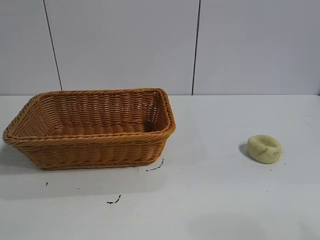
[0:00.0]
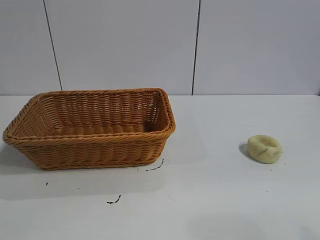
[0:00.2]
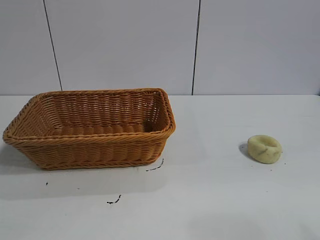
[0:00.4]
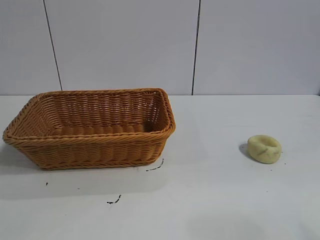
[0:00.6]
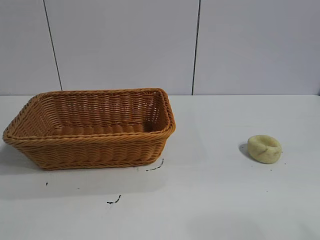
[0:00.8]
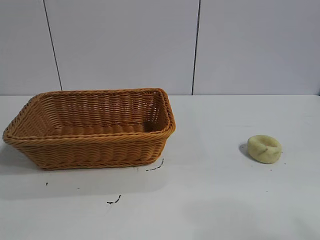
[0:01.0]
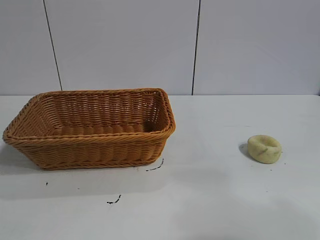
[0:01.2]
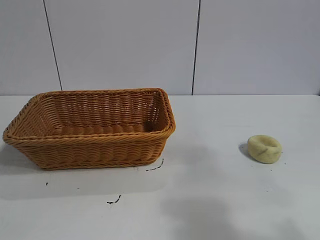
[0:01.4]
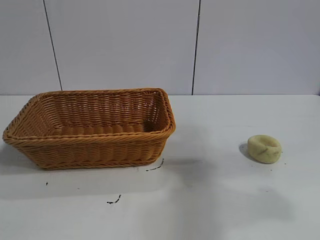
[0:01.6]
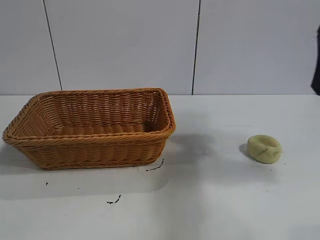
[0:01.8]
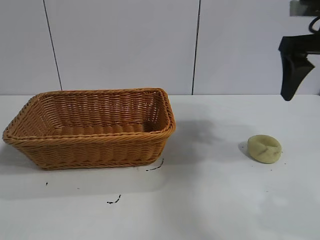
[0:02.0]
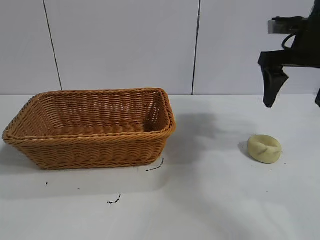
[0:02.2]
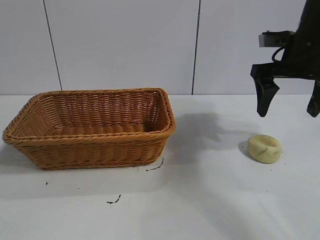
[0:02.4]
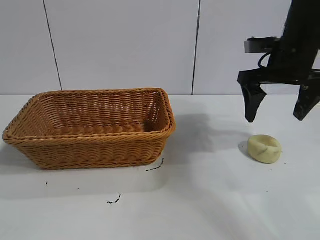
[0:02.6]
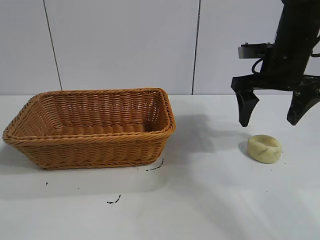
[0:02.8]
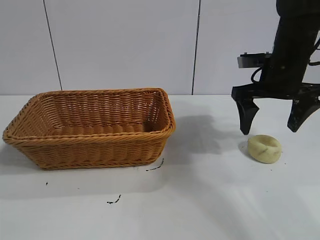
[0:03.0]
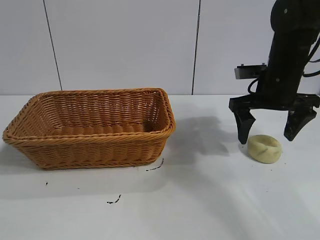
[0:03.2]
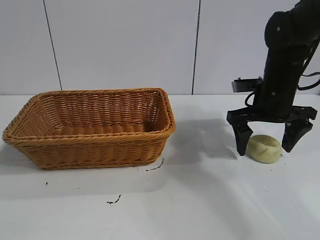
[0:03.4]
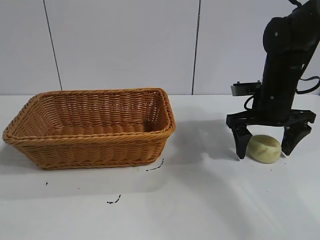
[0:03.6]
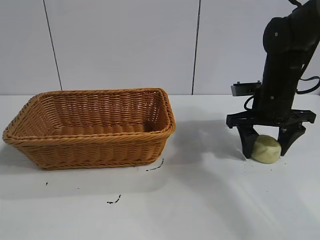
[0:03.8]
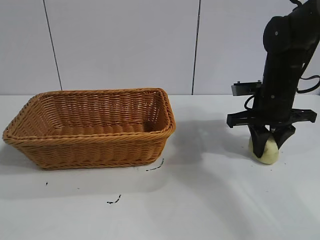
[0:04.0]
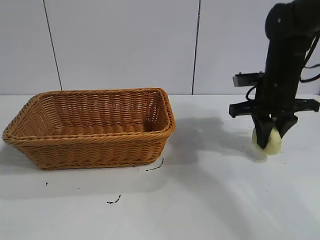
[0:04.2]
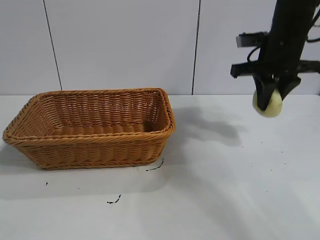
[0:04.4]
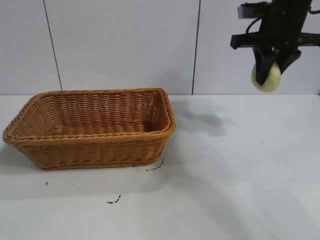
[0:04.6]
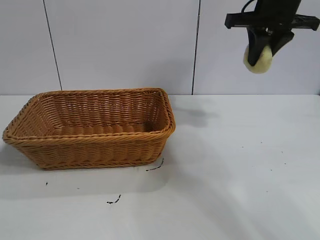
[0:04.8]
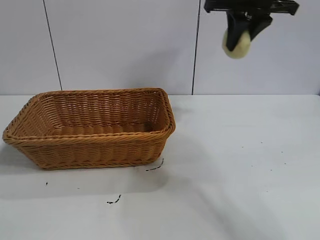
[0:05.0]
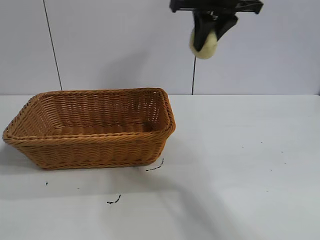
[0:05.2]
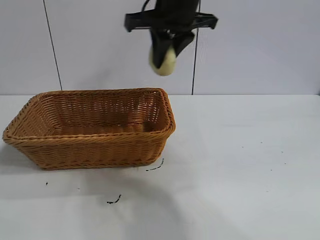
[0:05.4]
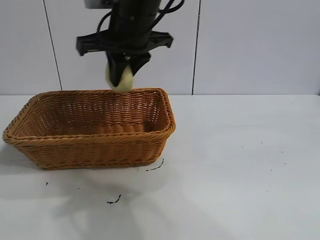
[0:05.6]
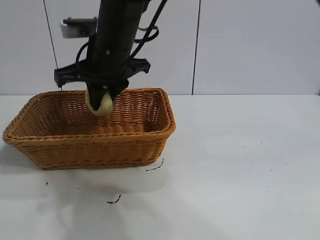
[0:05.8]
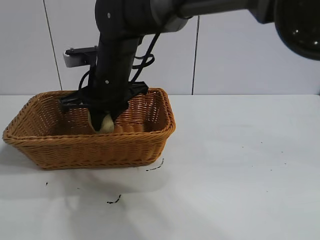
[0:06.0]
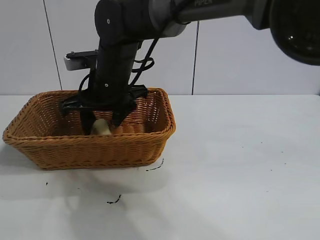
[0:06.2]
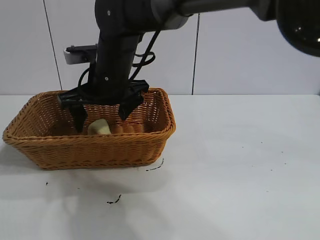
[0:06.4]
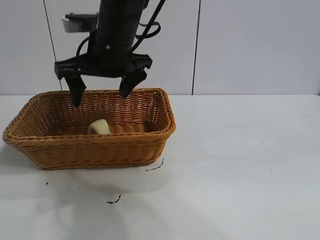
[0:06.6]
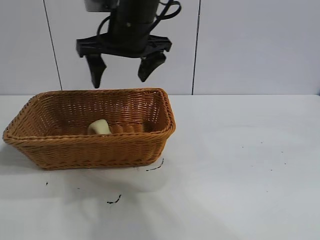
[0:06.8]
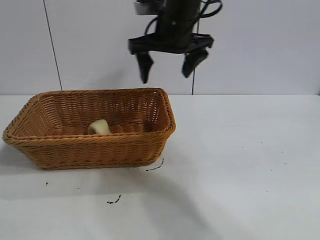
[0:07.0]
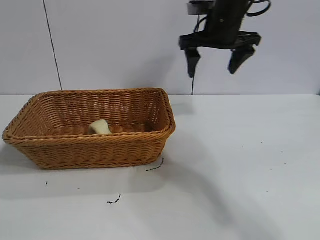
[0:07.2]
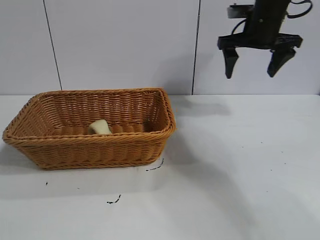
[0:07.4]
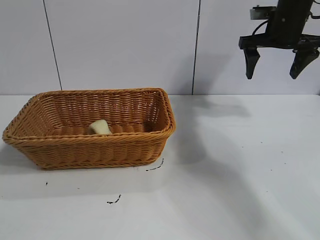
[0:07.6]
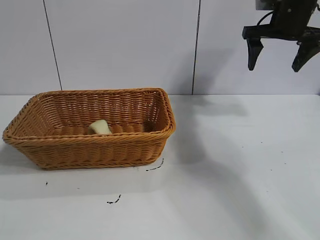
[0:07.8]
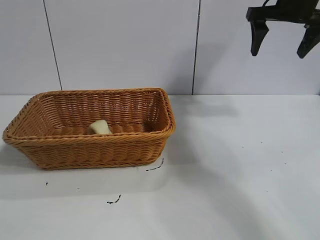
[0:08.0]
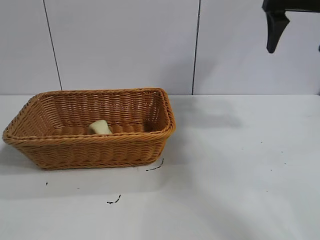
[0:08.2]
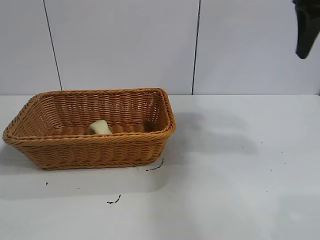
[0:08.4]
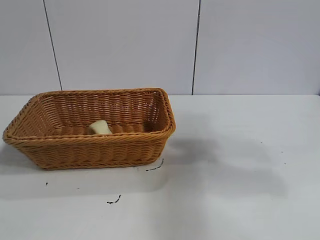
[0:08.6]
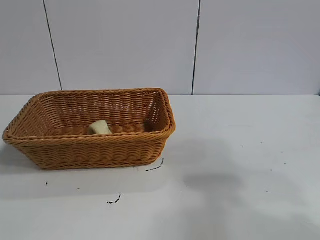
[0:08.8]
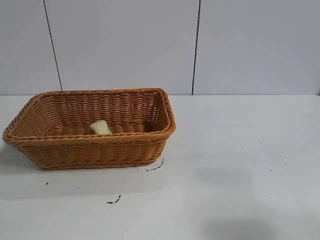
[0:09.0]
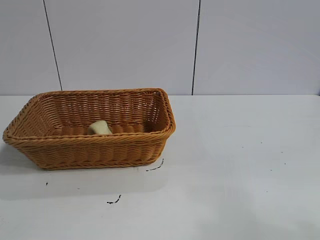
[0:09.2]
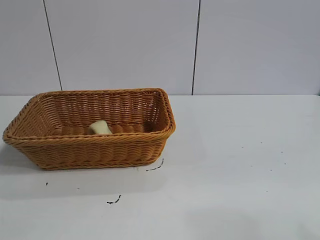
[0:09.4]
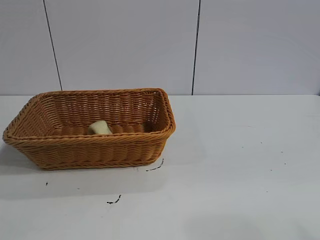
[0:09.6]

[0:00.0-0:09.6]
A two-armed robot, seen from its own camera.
Task of the whole recording: pick up the egg yolk pastry and put it into the basket.
Step, 0:01.0 to 0:04.0: Grasp egg yolk pastry with right gripper.
Step, 0:04.2 to 0:06.4: Place the egg yolk pastry in the basket with right gripper.

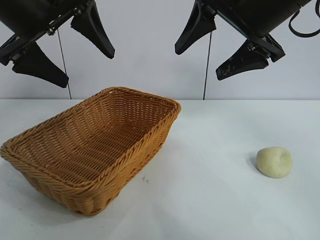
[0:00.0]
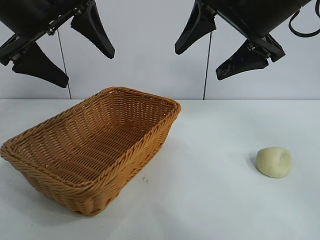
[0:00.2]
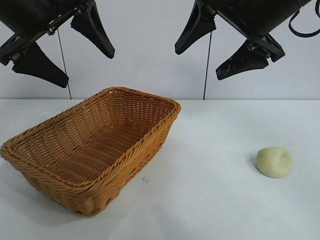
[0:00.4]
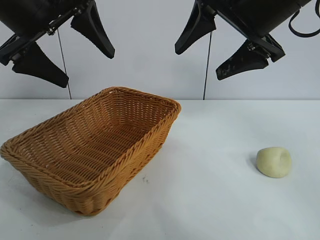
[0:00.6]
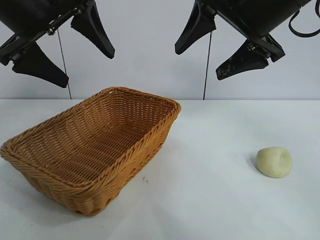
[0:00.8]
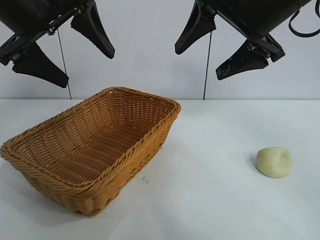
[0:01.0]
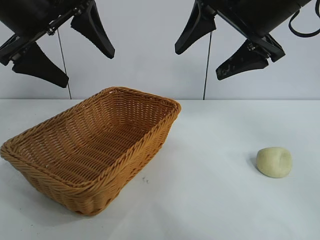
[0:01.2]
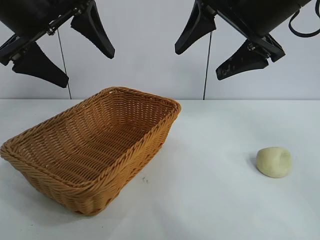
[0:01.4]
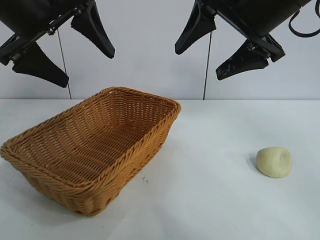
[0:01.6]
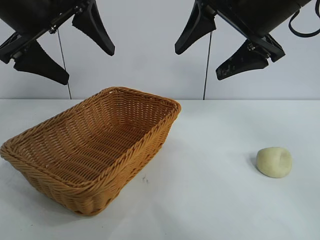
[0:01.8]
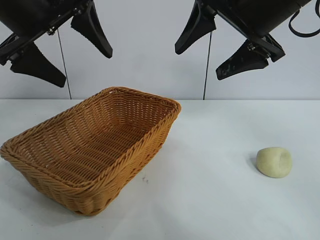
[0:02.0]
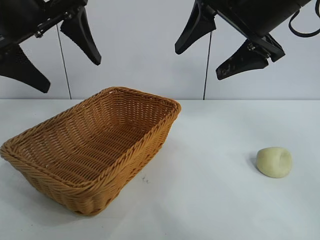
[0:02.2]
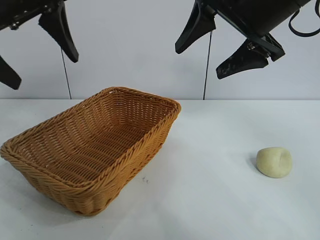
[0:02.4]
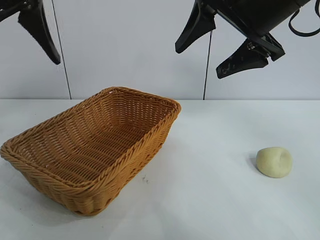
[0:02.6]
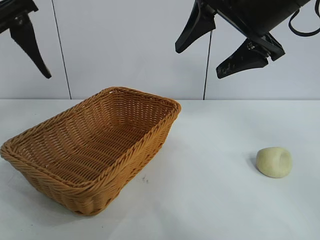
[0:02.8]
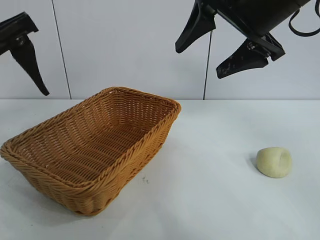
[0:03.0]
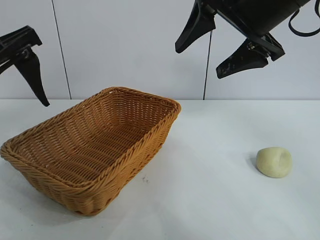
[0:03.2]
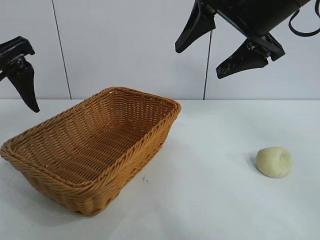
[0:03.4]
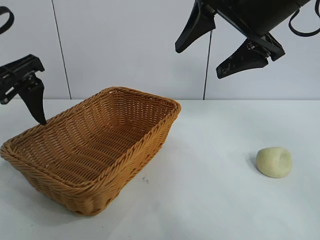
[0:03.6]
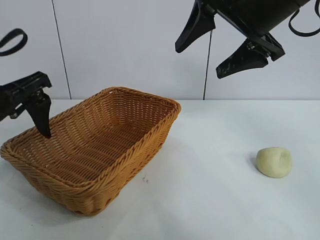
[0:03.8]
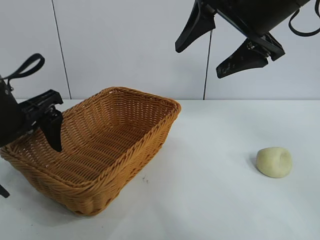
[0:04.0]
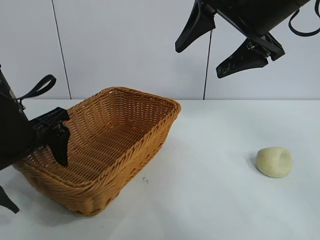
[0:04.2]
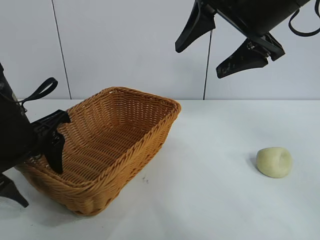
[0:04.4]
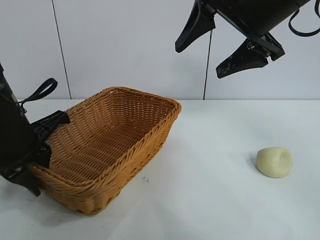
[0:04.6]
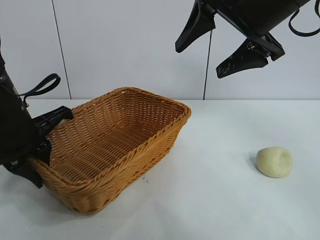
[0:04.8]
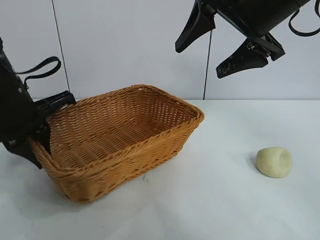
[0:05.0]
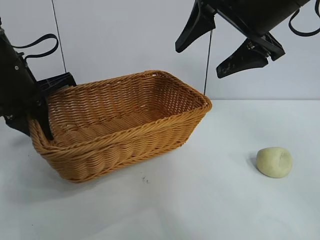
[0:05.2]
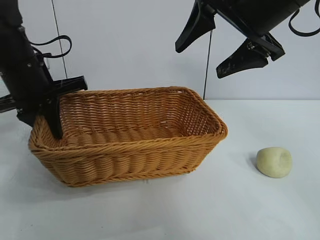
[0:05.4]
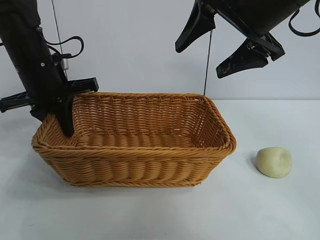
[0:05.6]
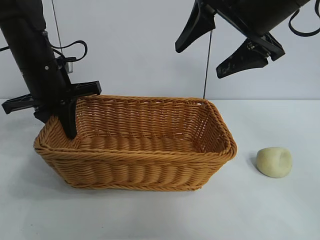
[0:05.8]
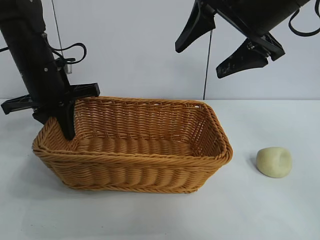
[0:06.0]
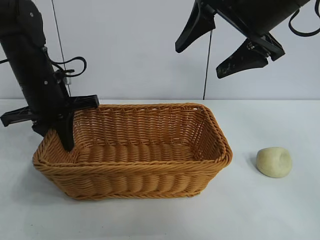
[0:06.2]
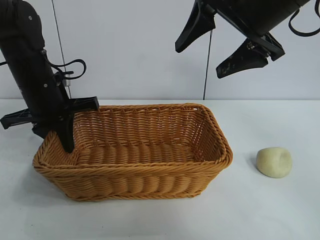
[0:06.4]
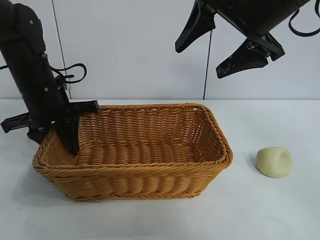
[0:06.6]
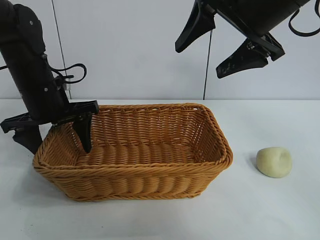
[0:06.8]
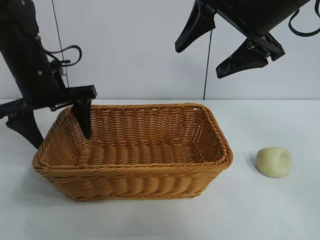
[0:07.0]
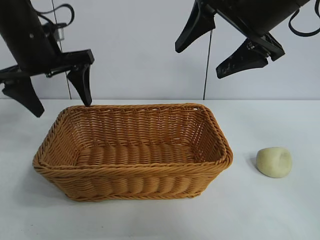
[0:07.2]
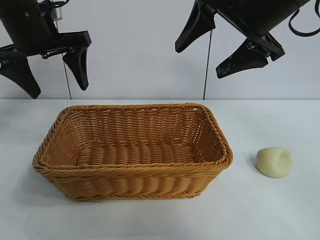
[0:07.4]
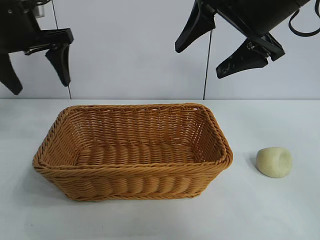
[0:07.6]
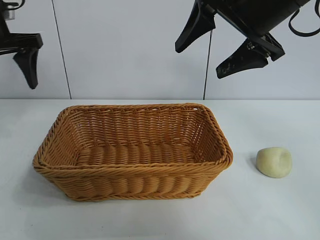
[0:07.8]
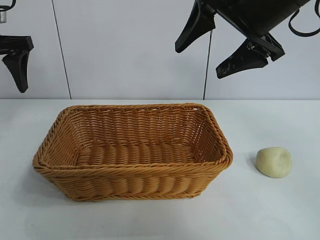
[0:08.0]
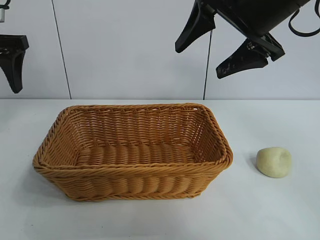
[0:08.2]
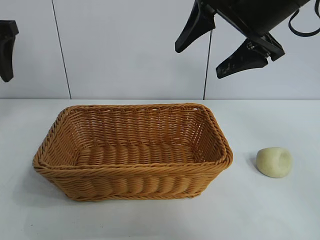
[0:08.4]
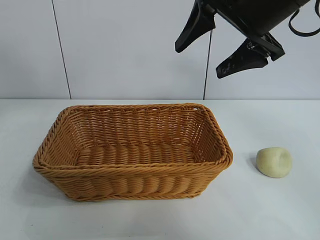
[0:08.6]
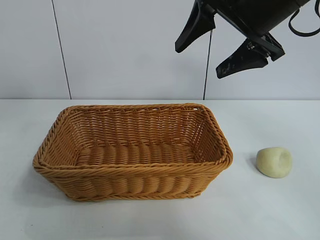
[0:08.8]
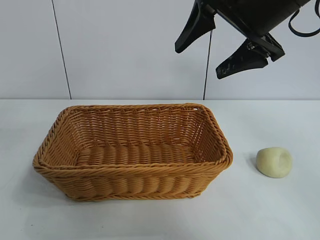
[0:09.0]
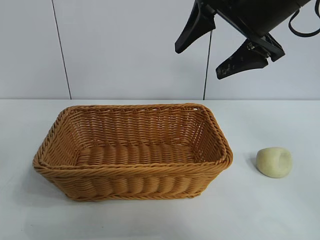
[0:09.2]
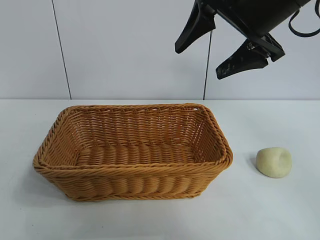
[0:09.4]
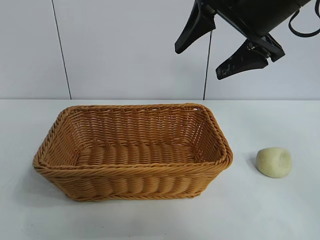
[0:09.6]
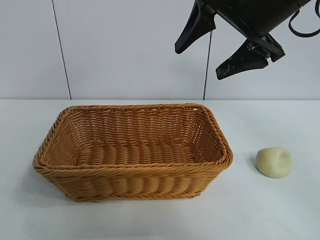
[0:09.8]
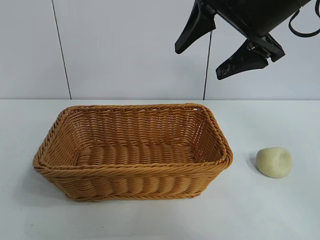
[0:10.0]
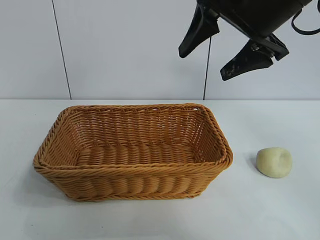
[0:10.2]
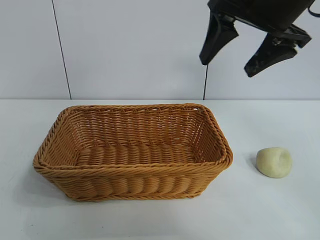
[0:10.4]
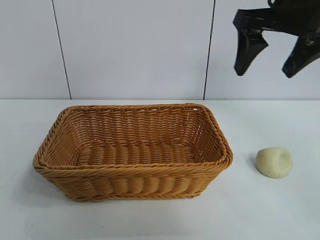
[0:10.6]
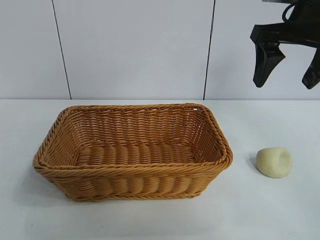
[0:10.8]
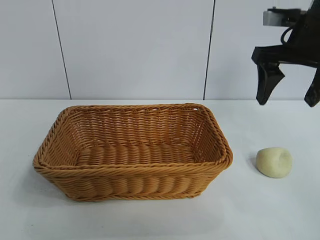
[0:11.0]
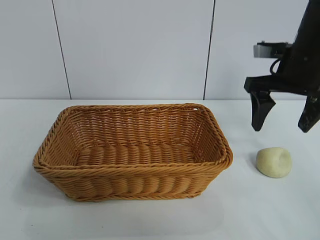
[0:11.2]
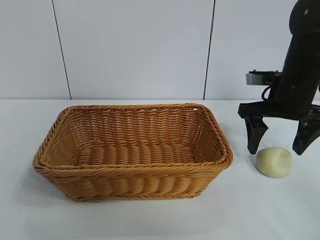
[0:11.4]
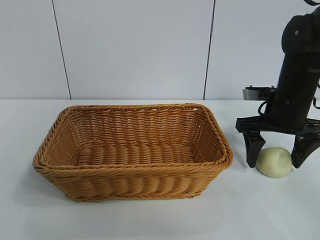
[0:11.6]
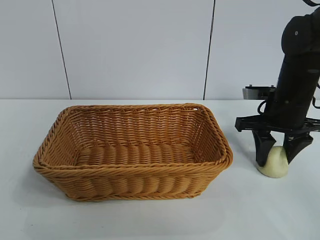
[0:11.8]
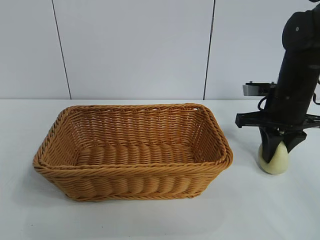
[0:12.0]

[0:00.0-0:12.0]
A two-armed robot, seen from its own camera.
Task of the whole recording: pick up the egg yolk pastry and put it into the basket.
Step, 0:01.6 to 0:04.6: Grasp the basket with left gripper.
Step, 0:04.8 to 0:06.6: Place the basket in the center of view with left gripper.
Step, 0:06.8 to 0:11.6: Grasp egg yolk pastry with right gripper.

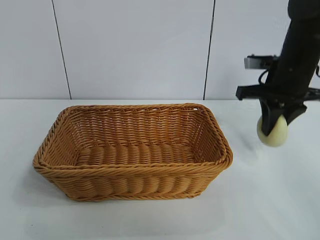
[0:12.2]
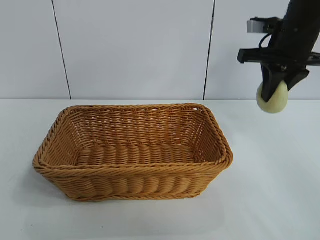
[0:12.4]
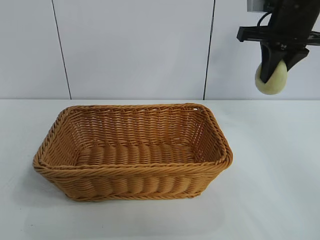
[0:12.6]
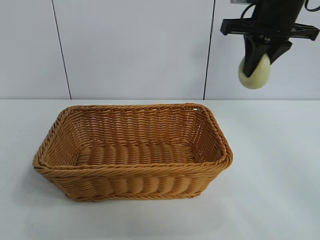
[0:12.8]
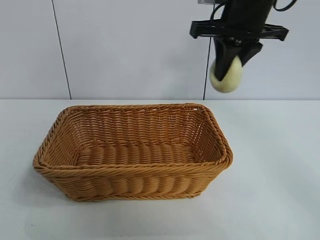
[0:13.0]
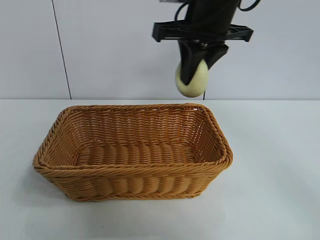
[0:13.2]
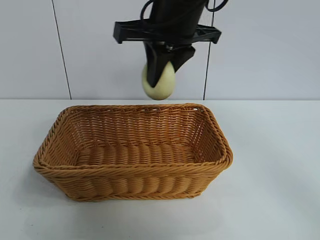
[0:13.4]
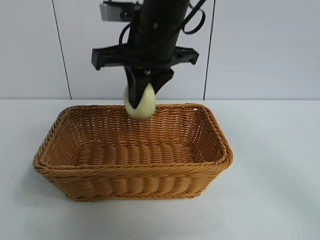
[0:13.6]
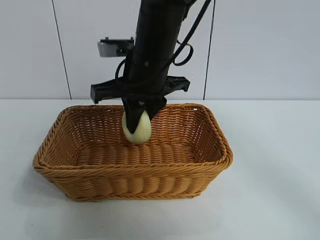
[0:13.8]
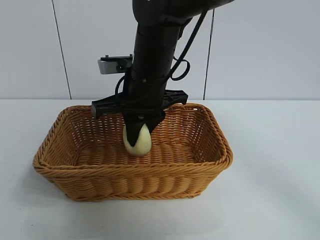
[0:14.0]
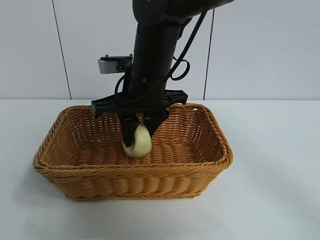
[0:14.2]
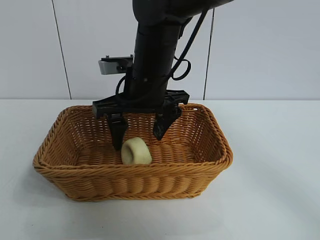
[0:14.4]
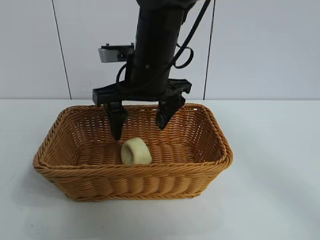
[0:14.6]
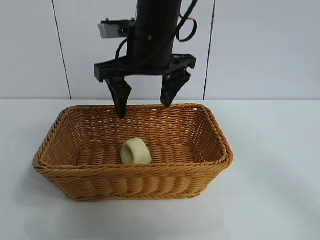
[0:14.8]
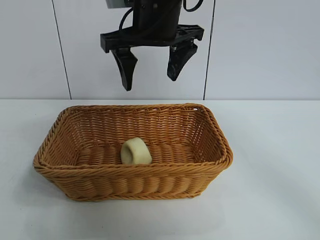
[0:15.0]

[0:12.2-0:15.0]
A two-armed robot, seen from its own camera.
Task of the whole recording: pick up the egg yolk pastry and put it into the basket.
Step, 0:12.2 to 0:14.2: Place the egg yolk pastry in the basket with right gripper.
